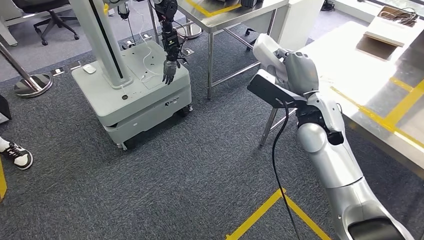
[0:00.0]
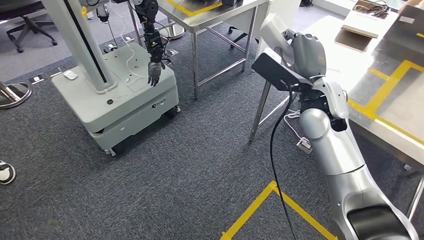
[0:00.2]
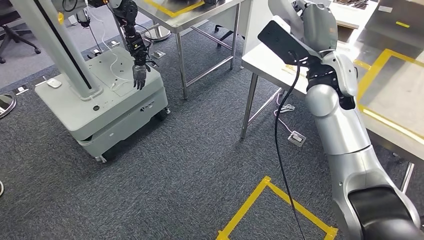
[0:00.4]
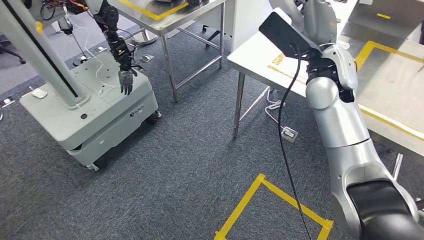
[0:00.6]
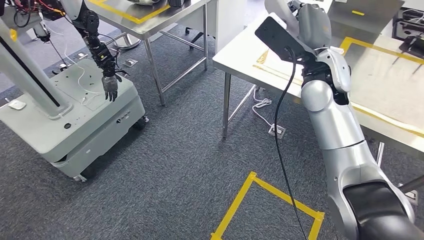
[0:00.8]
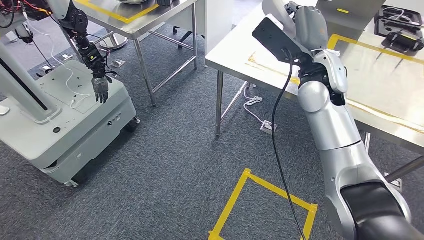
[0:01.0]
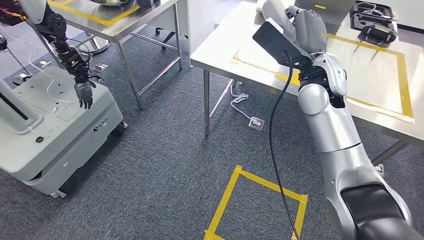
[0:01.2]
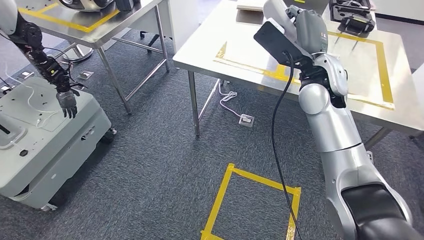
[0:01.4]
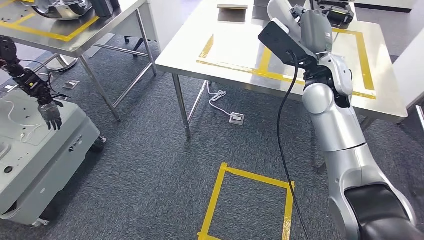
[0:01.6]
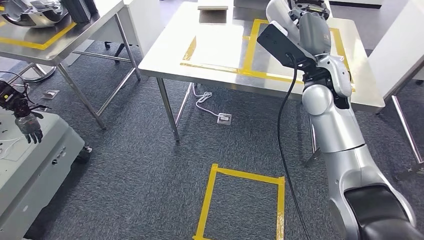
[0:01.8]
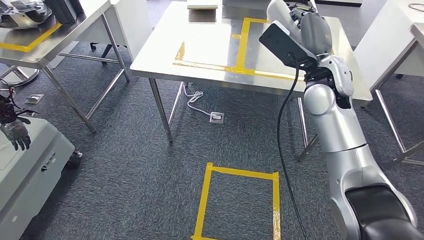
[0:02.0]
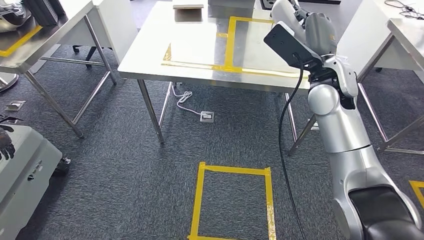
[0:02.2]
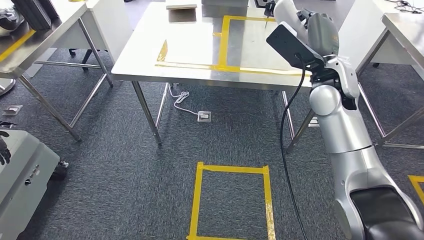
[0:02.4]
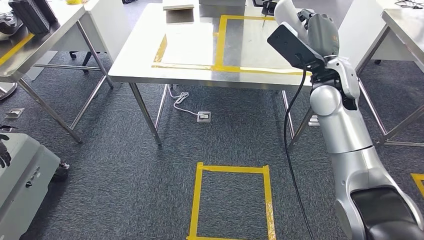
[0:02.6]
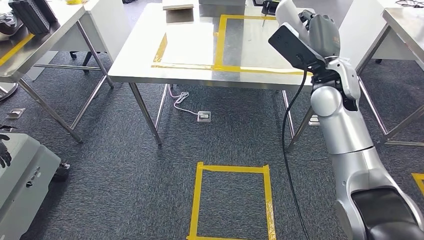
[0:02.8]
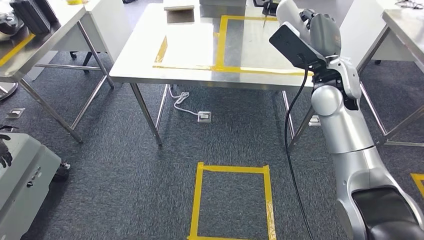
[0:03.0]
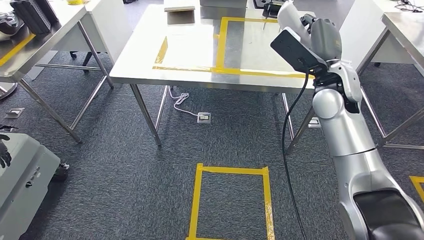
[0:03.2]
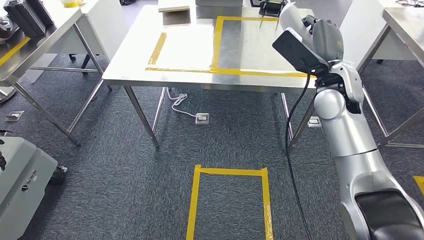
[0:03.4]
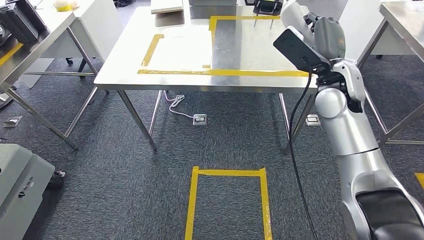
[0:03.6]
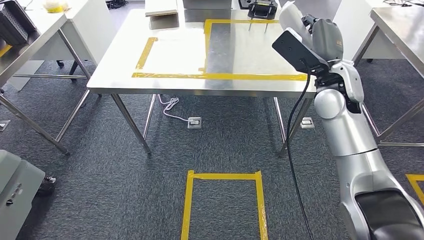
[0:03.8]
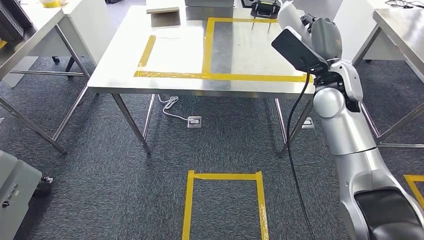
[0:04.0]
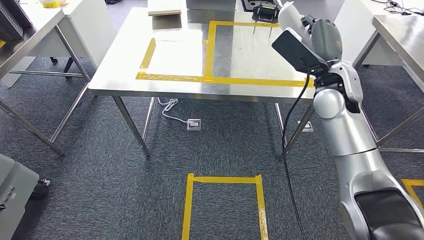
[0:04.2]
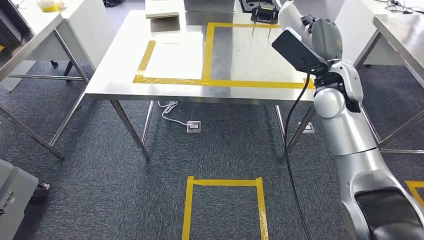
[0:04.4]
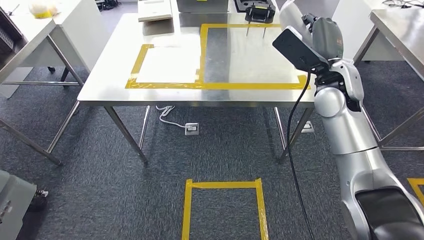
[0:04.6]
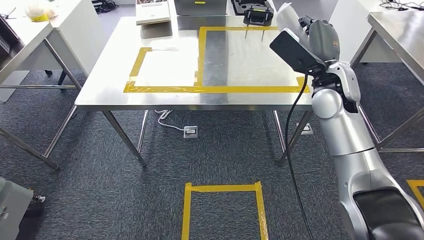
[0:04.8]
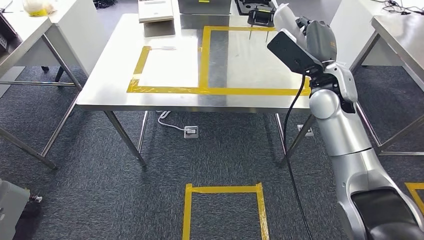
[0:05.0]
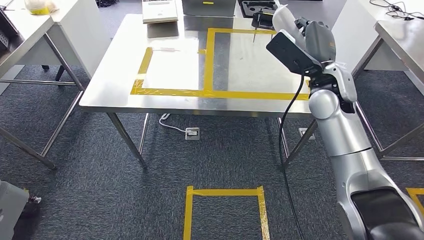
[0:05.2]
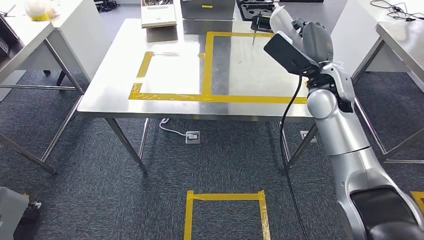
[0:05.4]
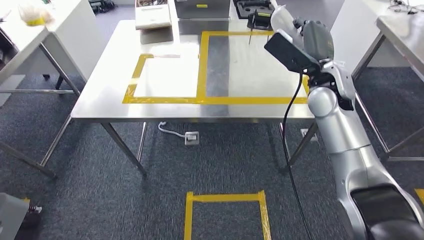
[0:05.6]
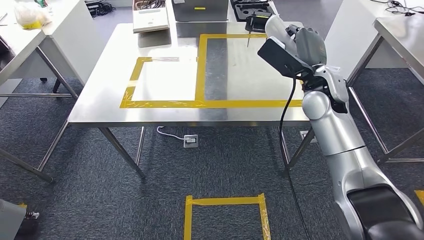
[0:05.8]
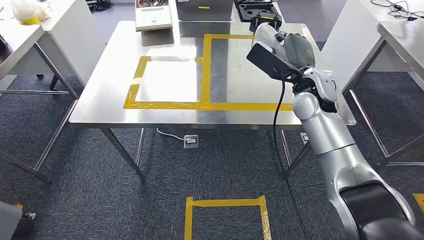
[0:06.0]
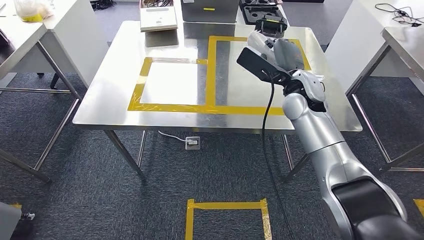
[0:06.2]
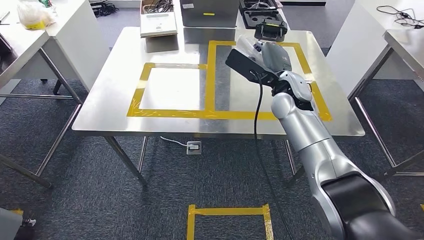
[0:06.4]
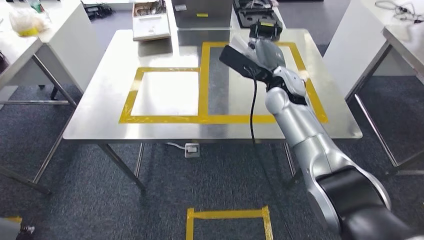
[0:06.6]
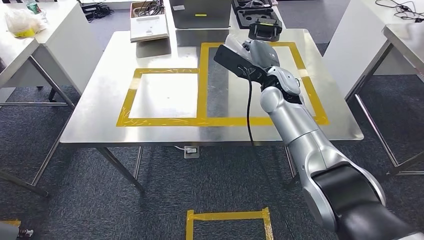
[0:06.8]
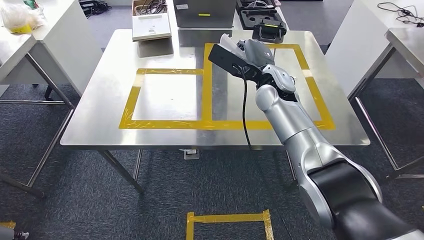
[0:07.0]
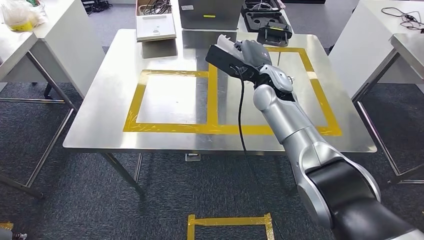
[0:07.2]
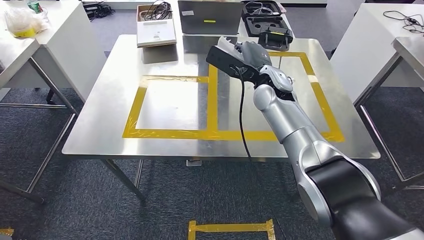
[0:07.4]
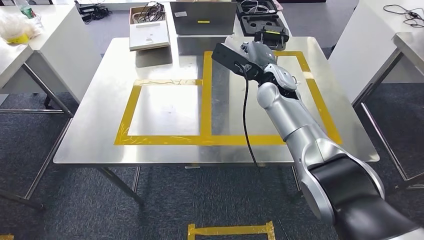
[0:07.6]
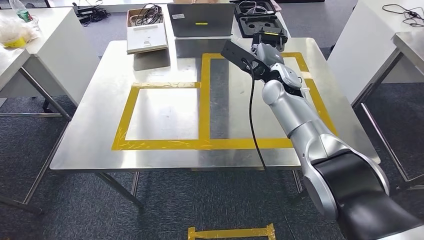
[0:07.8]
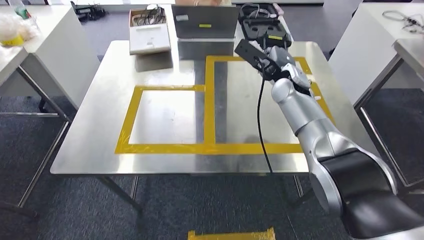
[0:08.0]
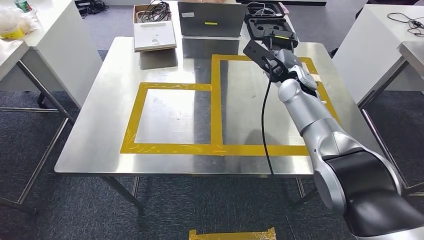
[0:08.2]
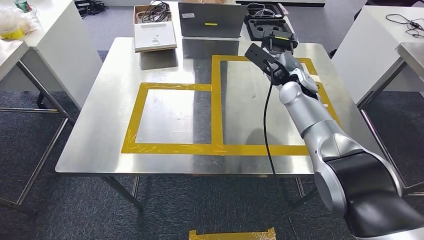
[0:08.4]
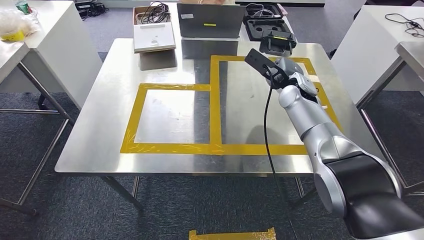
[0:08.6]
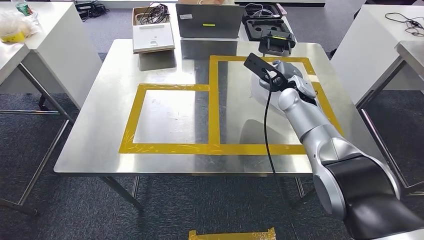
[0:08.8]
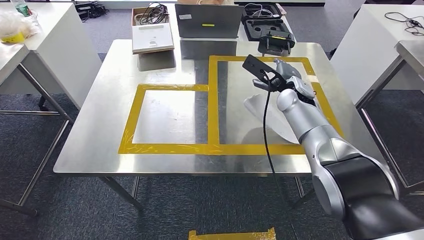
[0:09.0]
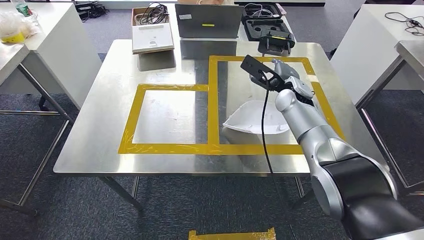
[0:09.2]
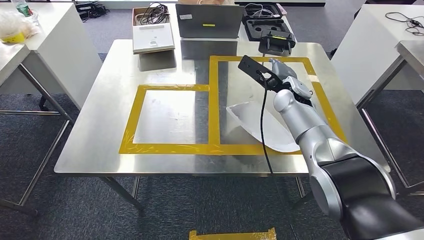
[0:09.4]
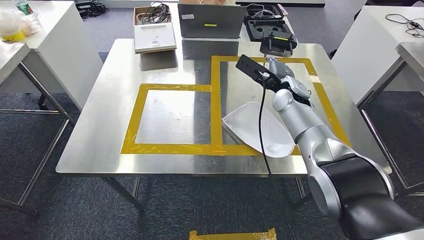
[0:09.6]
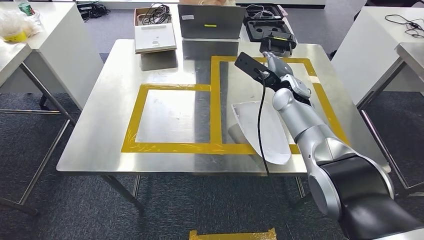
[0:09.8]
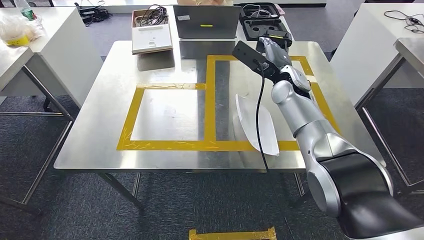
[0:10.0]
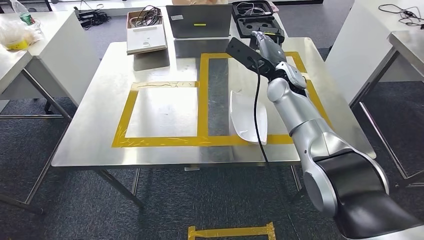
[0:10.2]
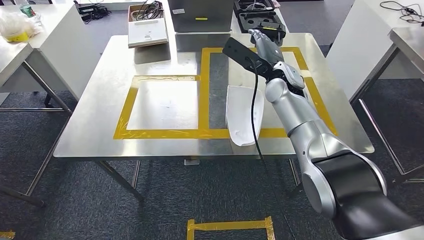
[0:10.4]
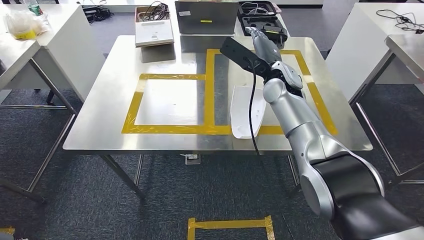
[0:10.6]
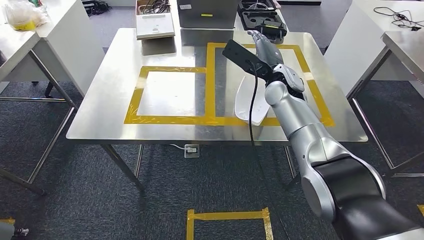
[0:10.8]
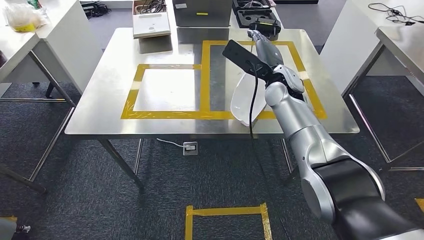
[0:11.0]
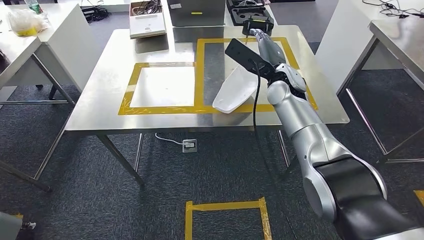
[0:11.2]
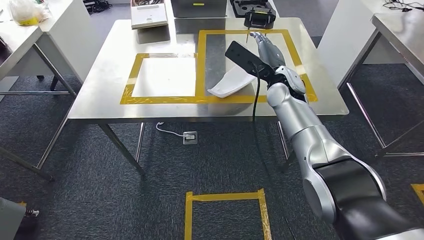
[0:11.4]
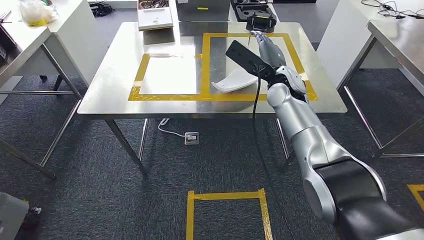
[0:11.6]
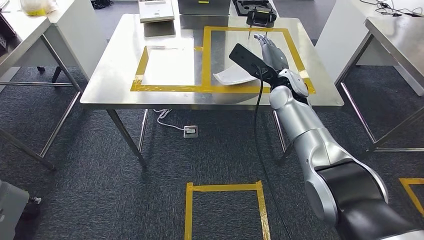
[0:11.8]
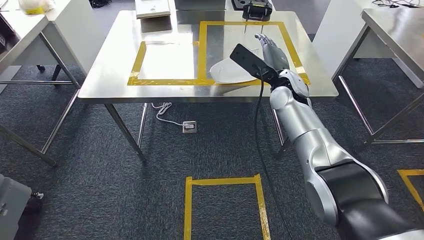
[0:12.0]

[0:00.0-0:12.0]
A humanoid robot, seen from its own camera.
Step, 0:00.0 to 0:02.6: Move the small parts to the workbench.
Step, 0:03.0 to 0:09.6: Insert the small parts into the corresponding slots on the workbench.

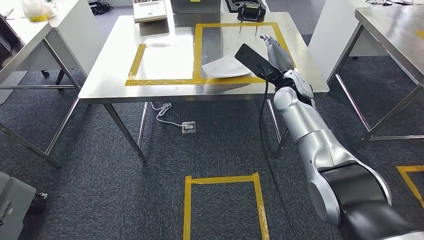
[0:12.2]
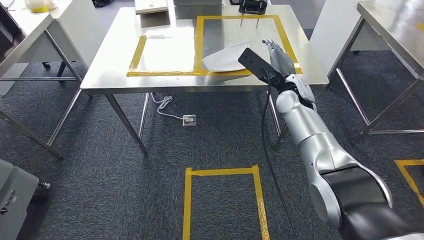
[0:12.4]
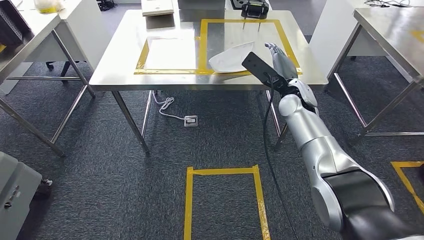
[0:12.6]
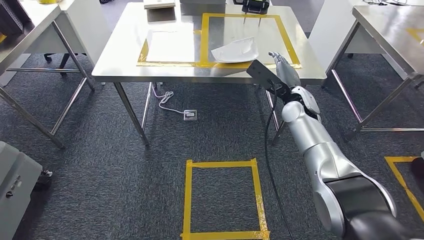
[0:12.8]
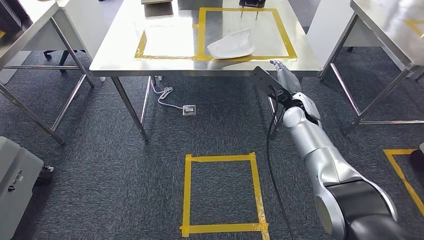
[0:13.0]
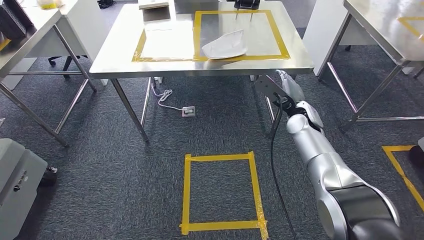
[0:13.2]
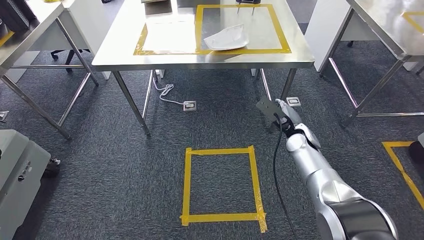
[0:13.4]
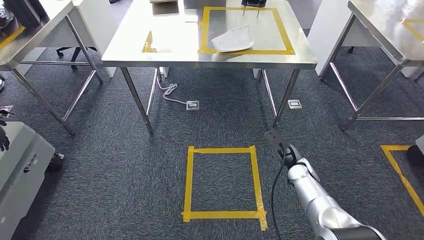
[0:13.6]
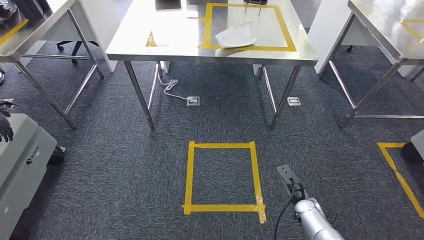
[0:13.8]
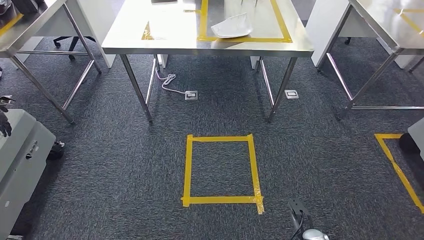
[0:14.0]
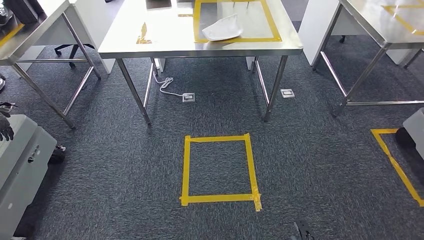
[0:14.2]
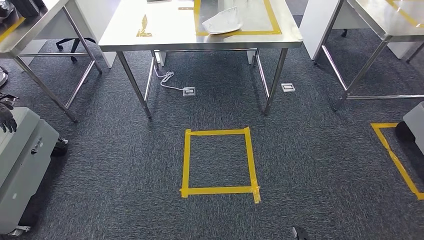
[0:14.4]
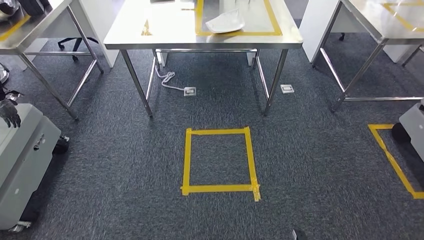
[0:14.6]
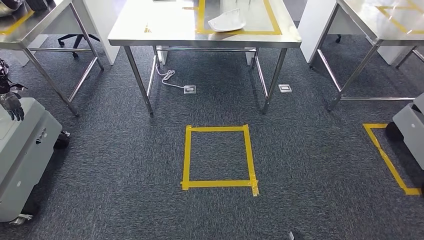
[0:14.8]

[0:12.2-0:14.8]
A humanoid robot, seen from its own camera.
Step, 0:12.2 to 0:14.8: Return to the initial position at the workbench.
